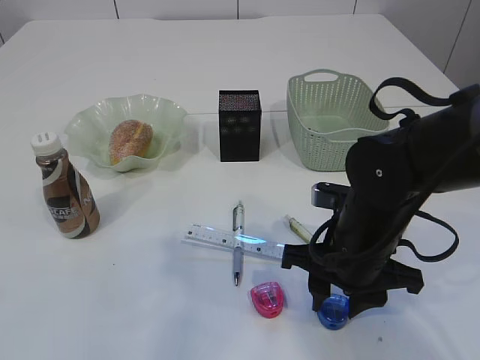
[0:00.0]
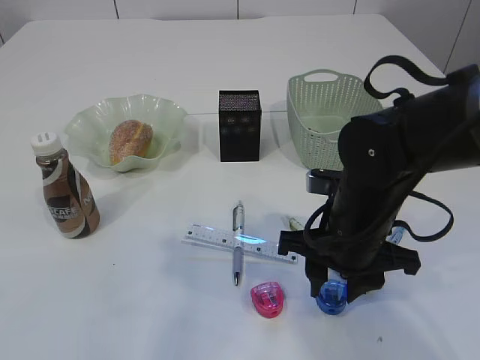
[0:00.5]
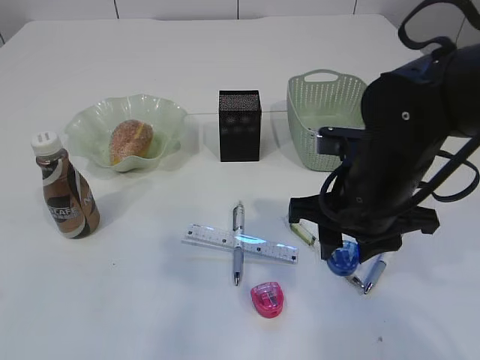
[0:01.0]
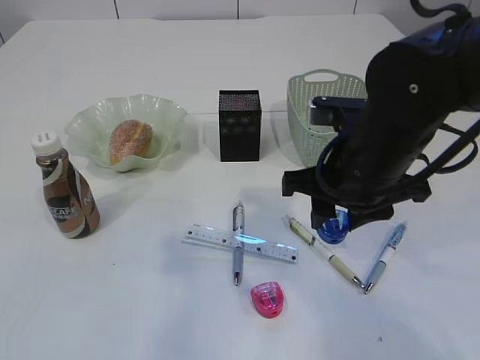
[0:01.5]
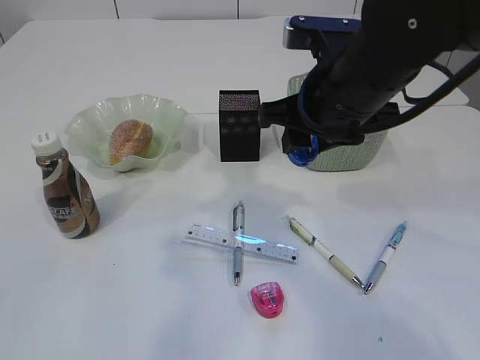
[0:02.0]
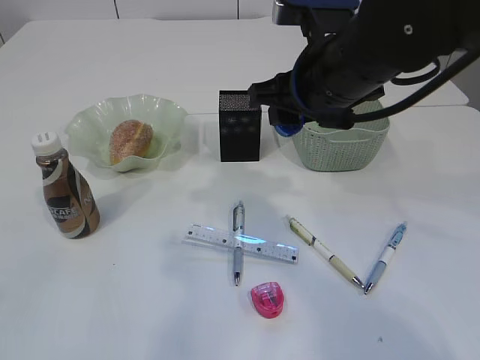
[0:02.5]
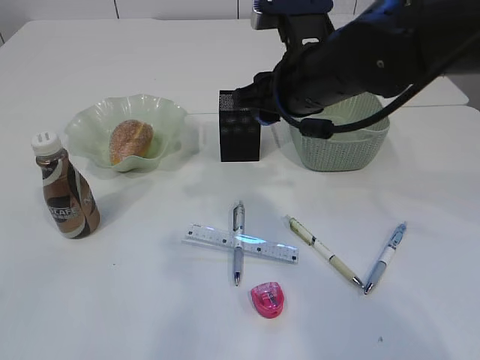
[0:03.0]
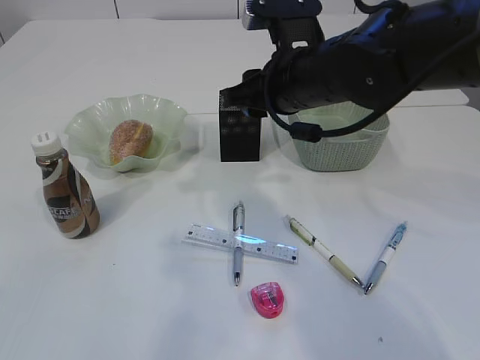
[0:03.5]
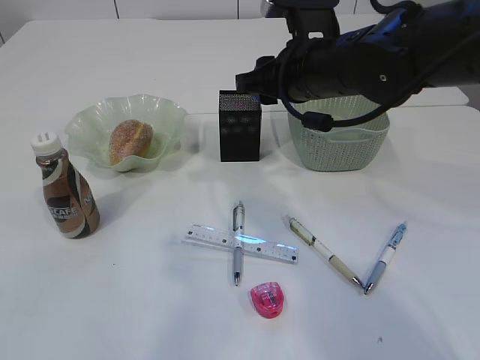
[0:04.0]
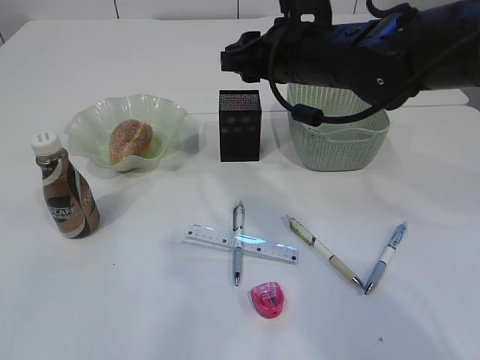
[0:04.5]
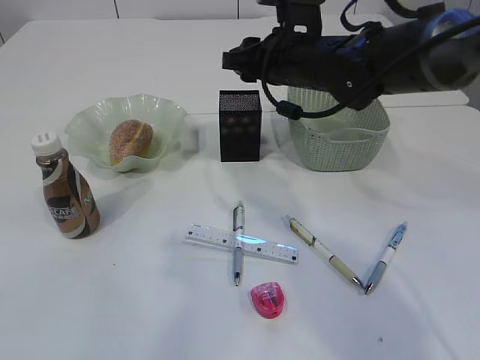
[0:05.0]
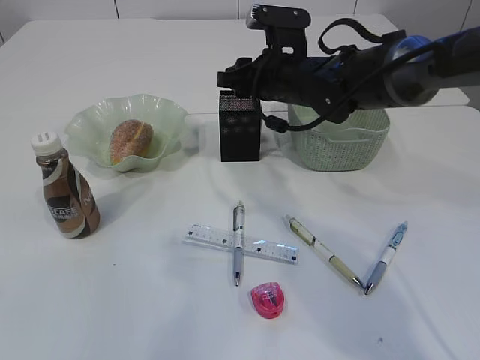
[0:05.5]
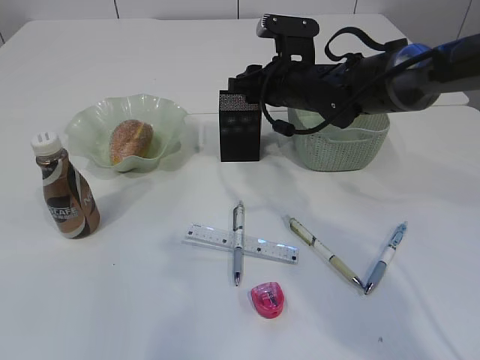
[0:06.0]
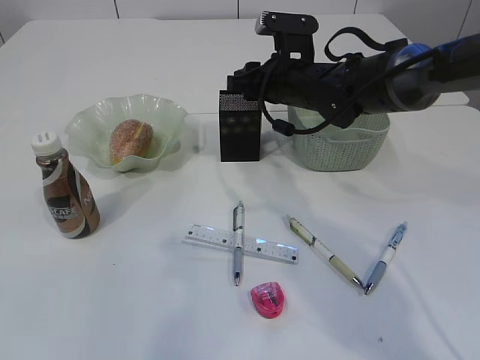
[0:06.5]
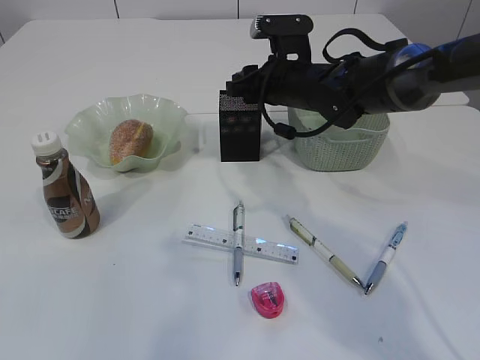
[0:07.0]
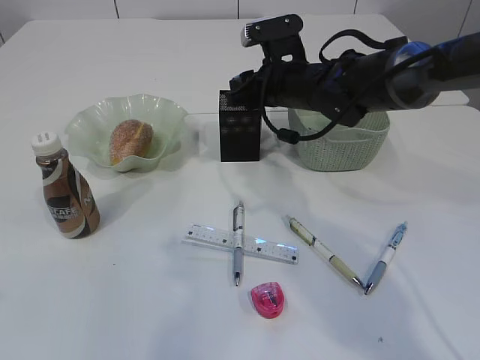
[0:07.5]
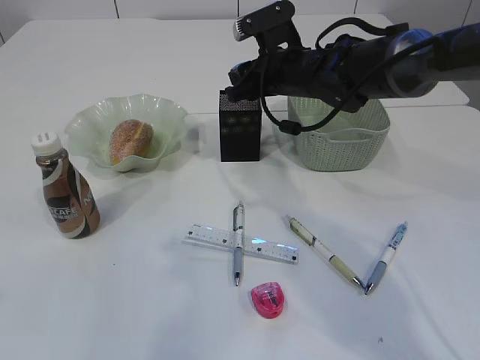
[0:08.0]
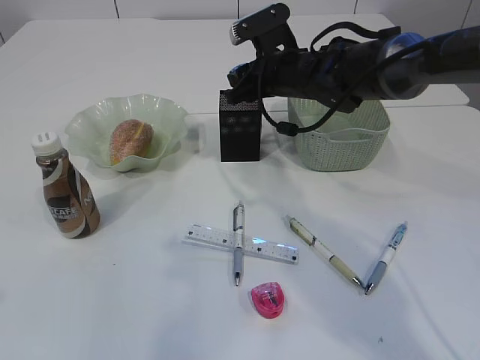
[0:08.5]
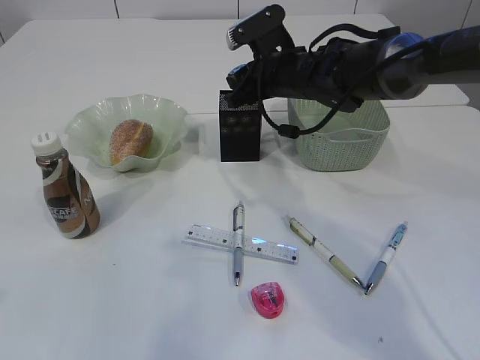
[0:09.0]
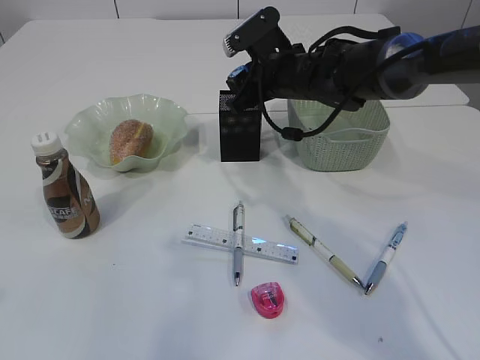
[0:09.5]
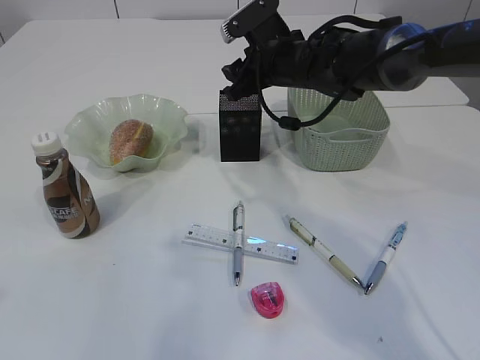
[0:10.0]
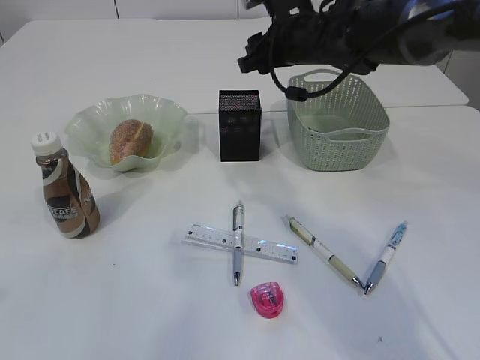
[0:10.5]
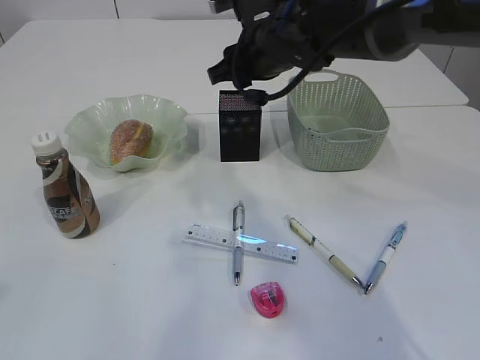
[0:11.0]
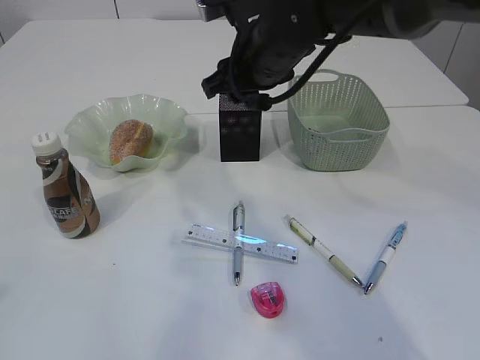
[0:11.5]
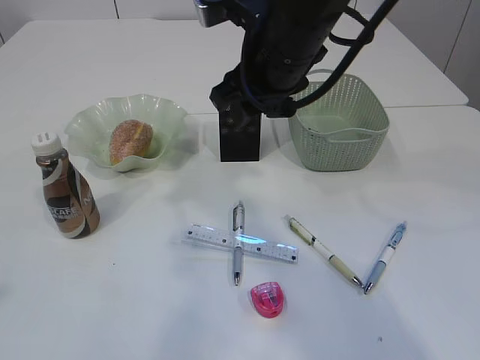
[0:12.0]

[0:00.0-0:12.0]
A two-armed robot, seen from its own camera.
0:00.0 to 0:02.0: The right gripper moves upward and forward, roughly 15 cm.
0:02.0 to 0:04.0: The right gripper shifts approximately 5 cm forward.
0:04.0 to 0:06.0: The right gripper heads forward and downward, covering about 10 cm.
0:08.0 to 0:10.0: The grippers move only a little.
0:10.0 to 0:12.0: The right gripper shifts roughly 15 cm backward and upward.

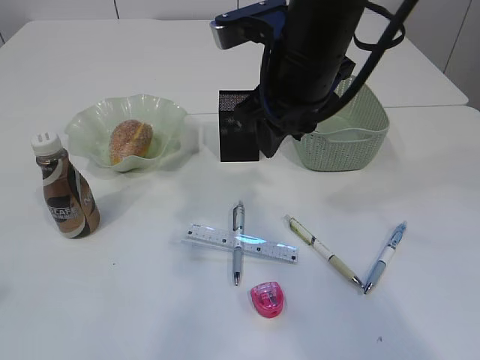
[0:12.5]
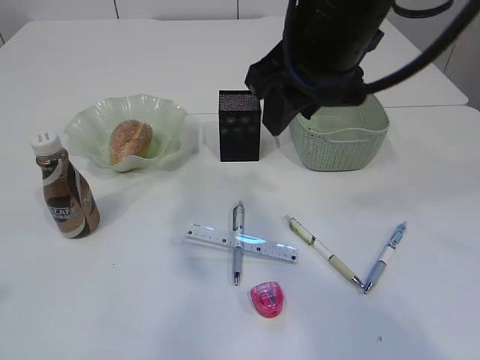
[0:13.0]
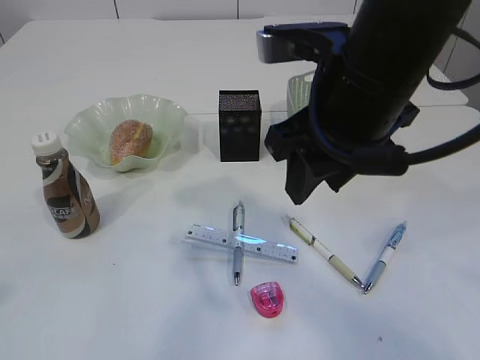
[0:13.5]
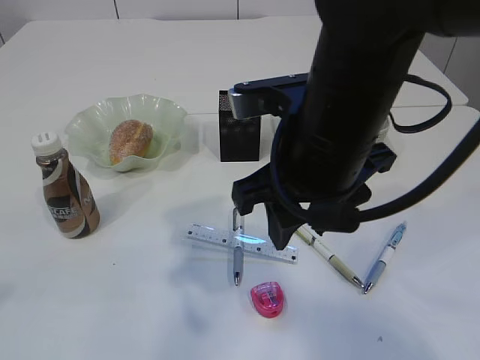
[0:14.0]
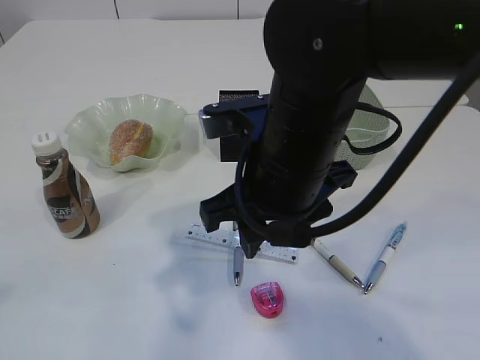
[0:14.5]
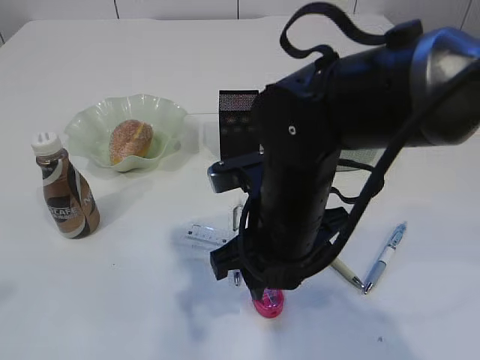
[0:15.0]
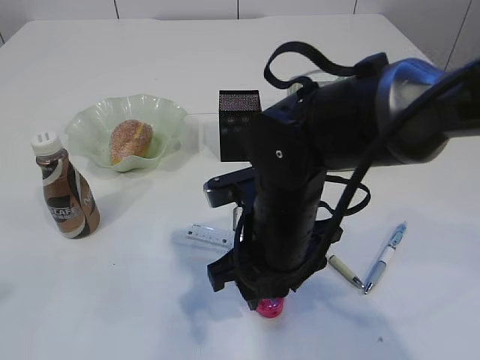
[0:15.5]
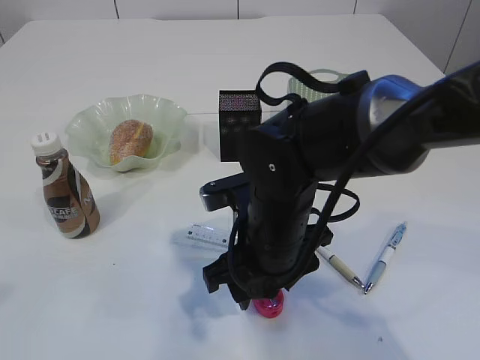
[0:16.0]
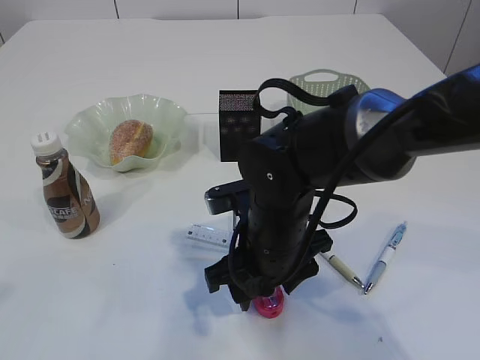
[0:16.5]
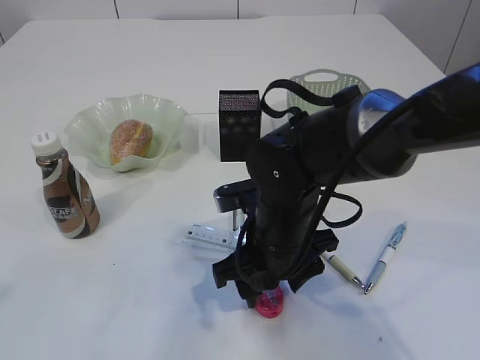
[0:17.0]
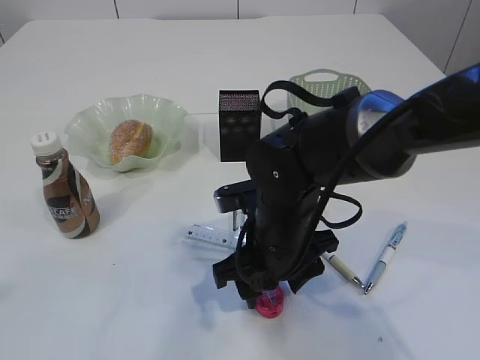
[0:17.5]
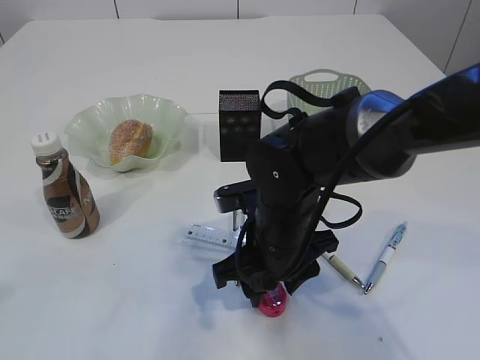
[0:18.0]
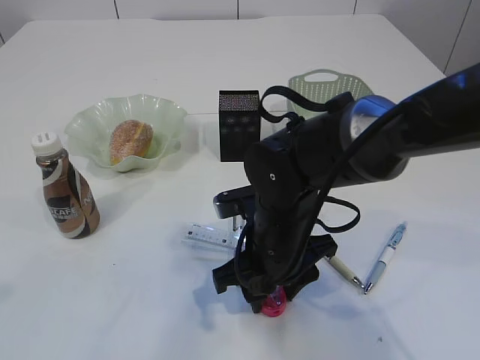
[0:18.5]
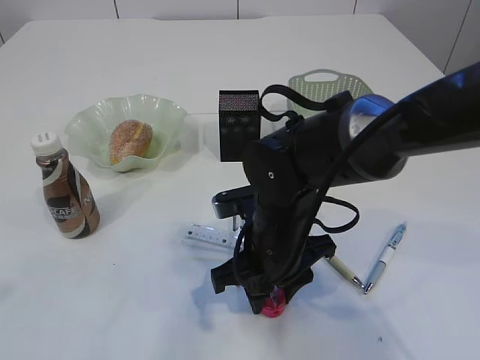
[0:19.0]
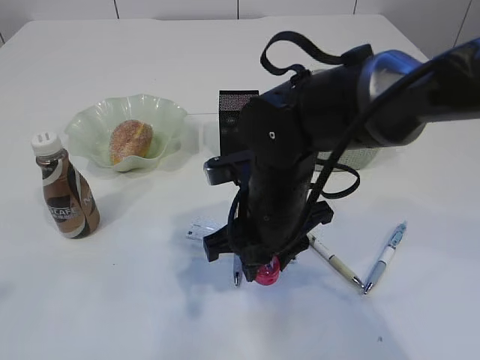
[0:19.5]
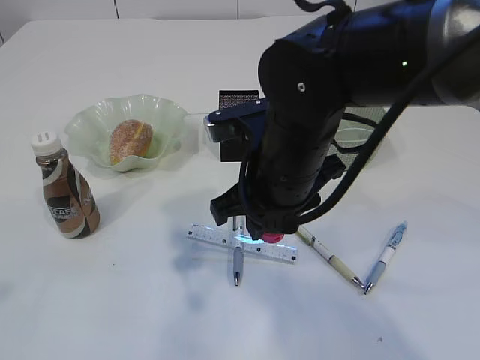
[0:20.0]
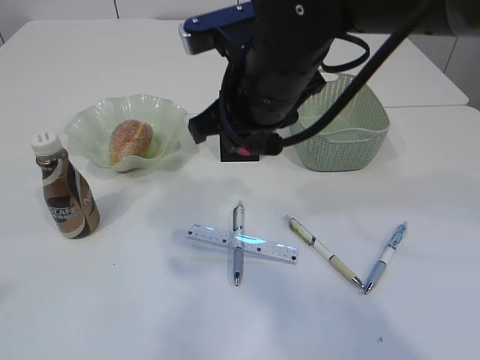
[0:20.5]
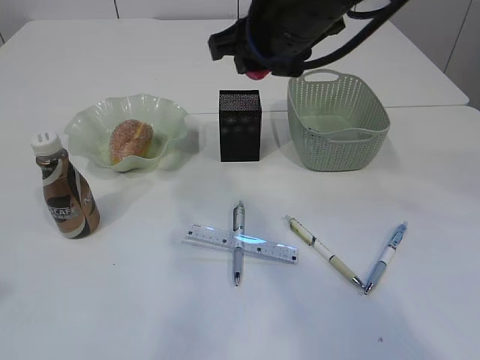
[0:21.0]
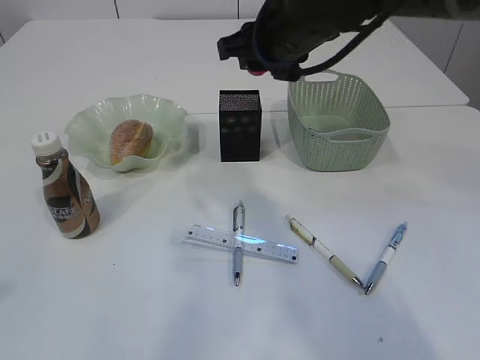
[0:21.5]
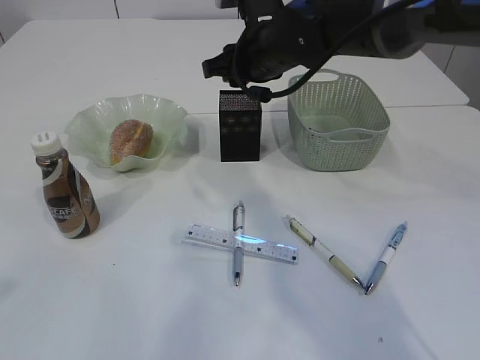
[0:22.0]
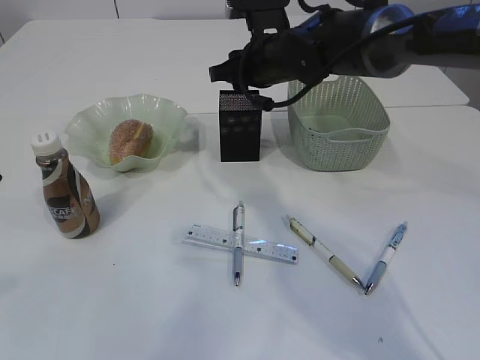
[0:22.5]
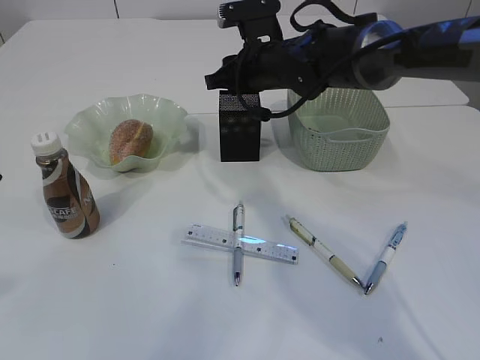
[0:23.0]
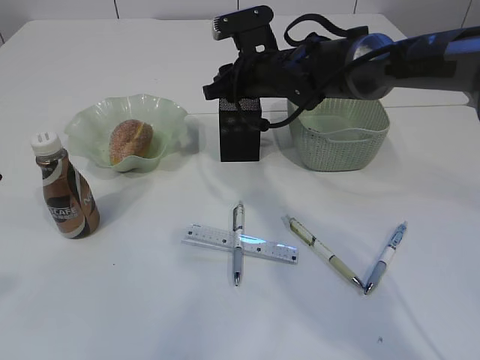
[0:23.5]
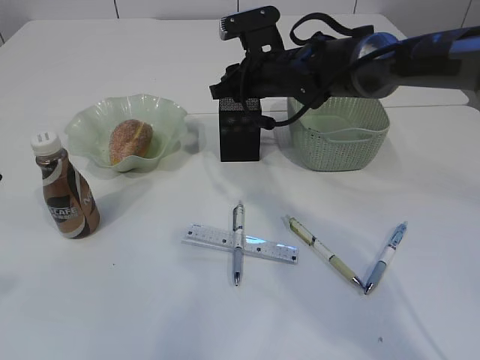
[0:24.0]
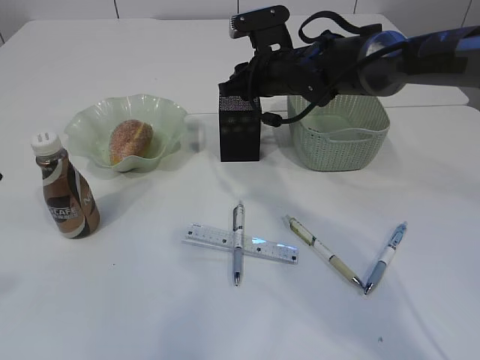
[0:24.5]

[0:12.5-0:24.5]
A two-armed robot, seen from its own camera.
Step, 0:12.5 to 0:19.5: Pick up the red pencil sharpener.
0:12.5 to 0:14.5: The right gripper is displaced backward by about 10 cm.
0:14.5 to 0:16.5: The right gripper heads downward, covering roughly 10 cm.
0:16.5 to 0:18.5: The grippers move only a little.
0:18.5 to 0:20.5: The right gripper is displaced upward by about 15 cm.
0:20.5 to 0:22.5: The right gripper goes approximately 15 cm forward.
0:22.5 to 0:24.5: The grippers make only small movements.

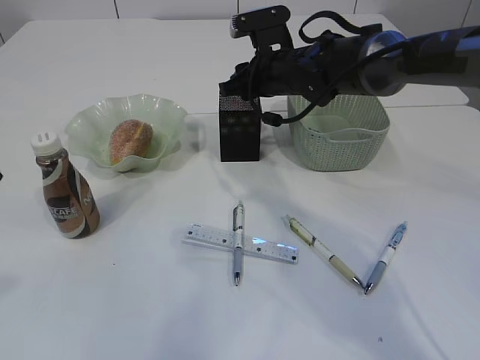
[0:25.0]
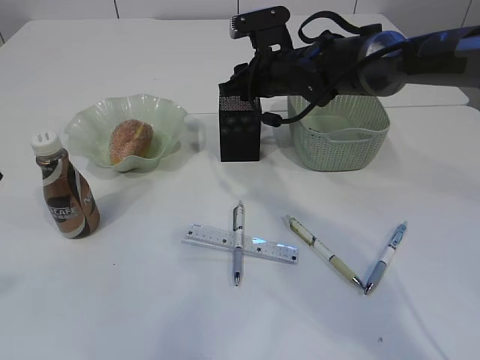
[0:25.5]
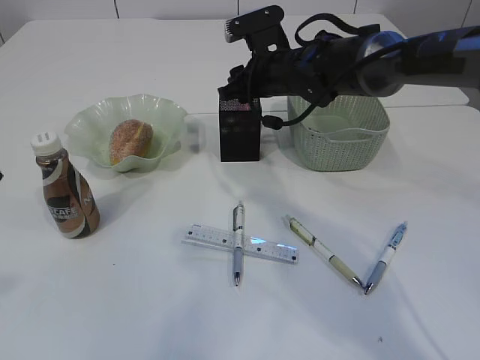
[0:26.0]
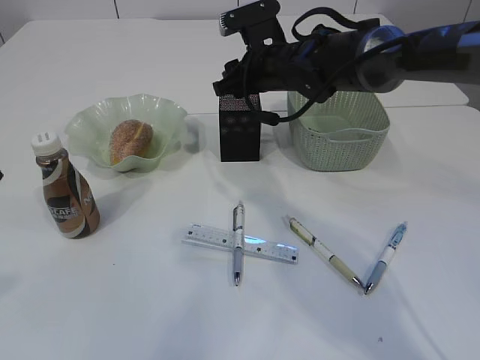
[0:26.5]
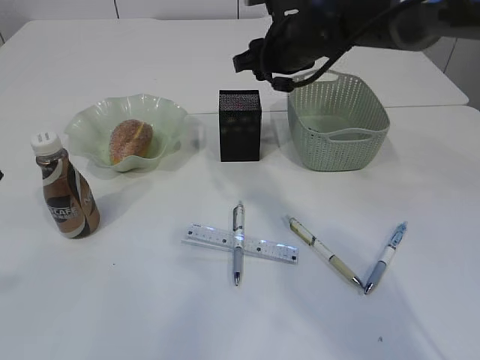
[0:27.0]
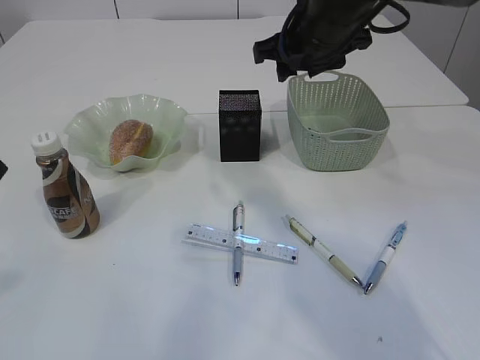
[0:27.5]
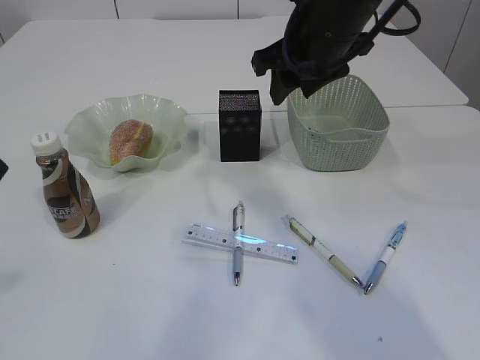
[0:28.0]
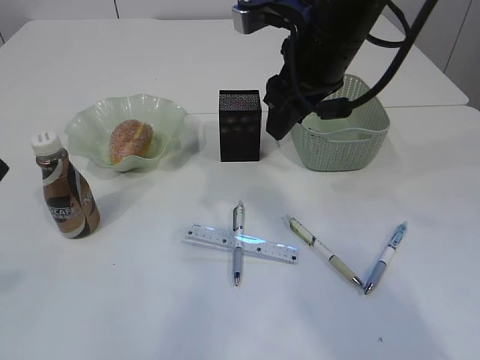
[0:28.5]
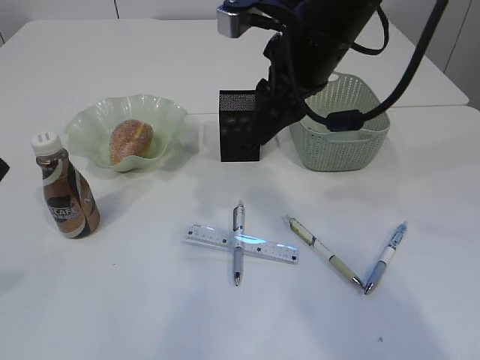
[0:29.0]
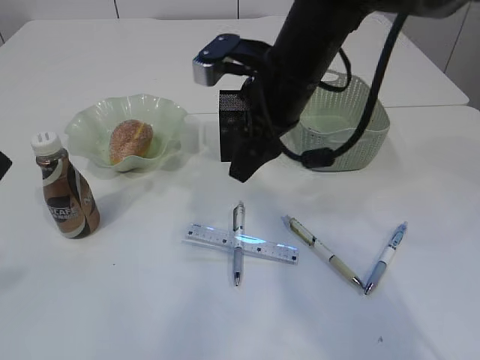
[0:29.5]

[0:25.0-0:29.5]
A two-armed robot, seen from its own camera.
Step, 0:25.0 to 0:27.5: Place the red pencil sharpener into the pen holder.
0:25.0 to 0:27.0: The right gripper travels upward by about 5 cm.
0:27.0 to 0:29.5: The right gripper goes approximately 10 cm backward.
